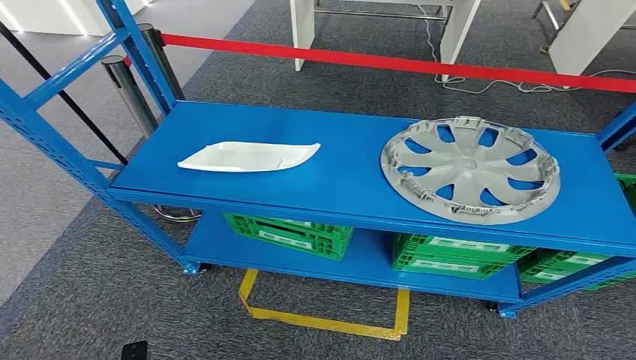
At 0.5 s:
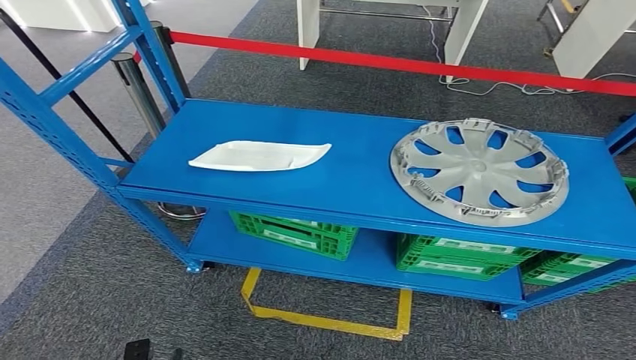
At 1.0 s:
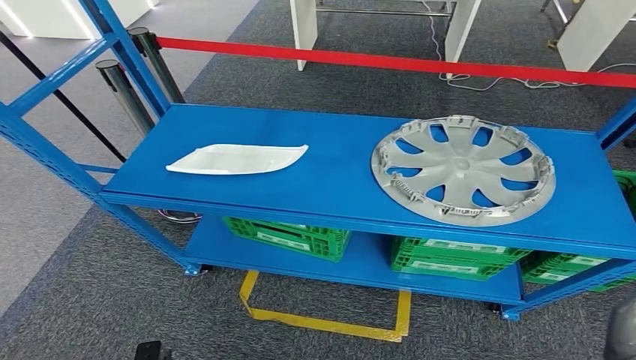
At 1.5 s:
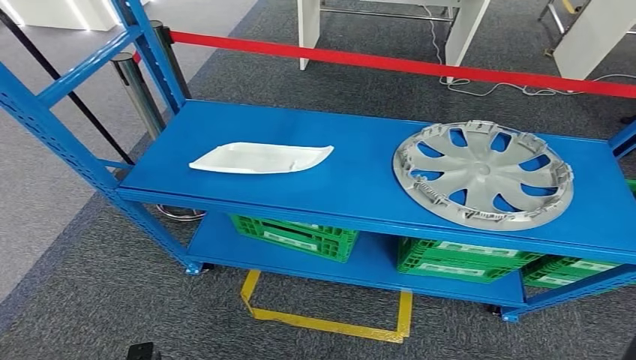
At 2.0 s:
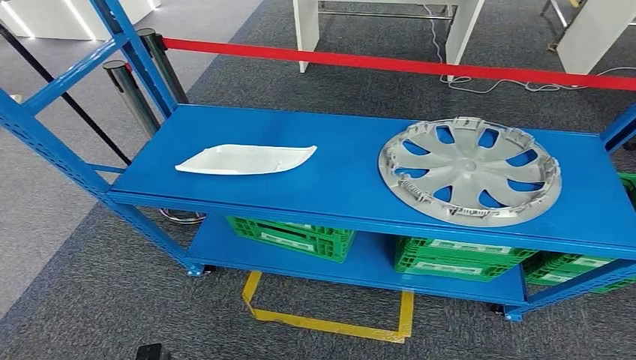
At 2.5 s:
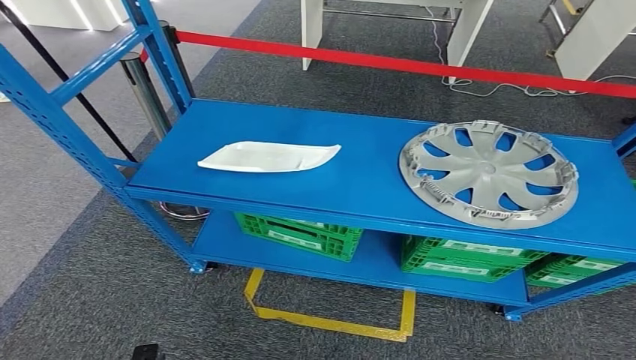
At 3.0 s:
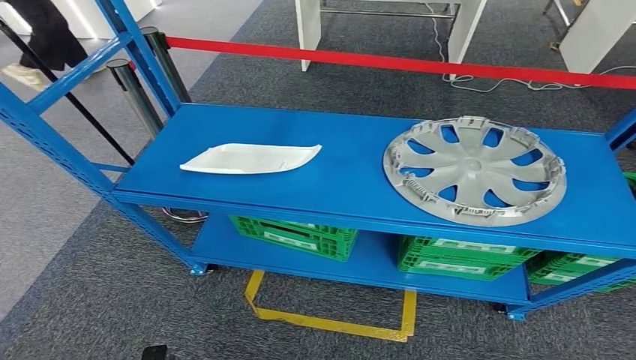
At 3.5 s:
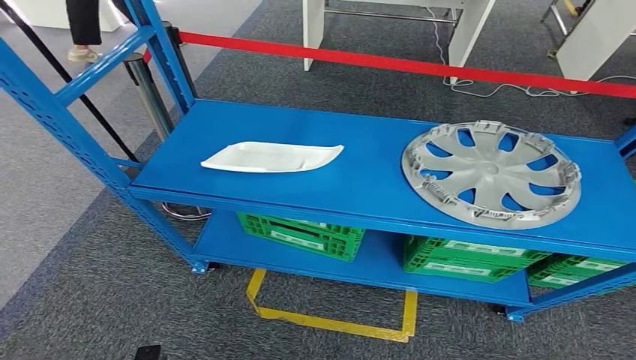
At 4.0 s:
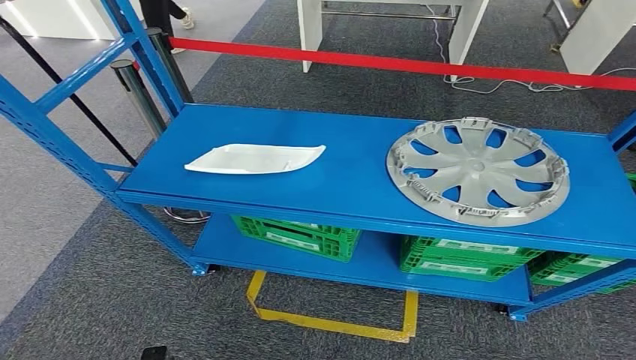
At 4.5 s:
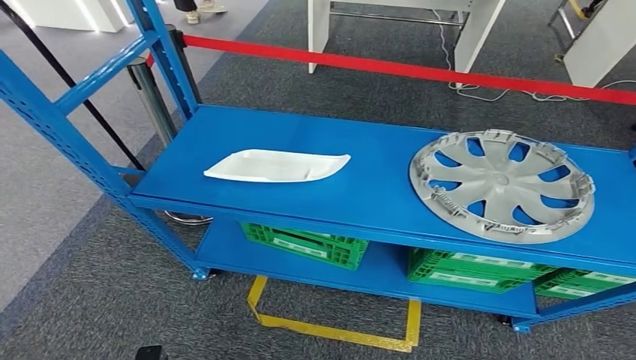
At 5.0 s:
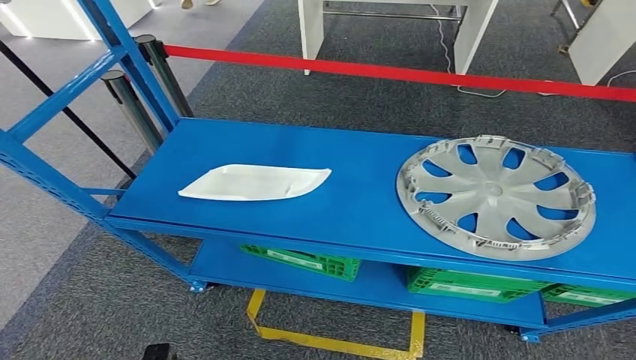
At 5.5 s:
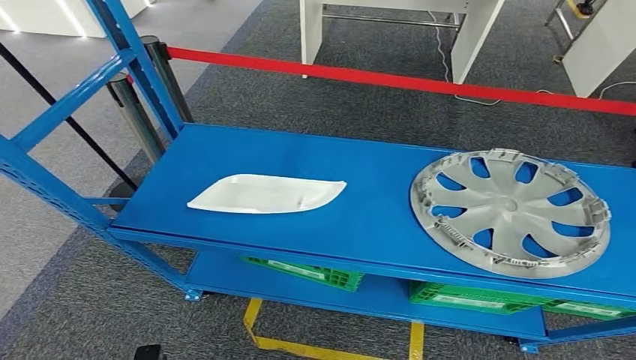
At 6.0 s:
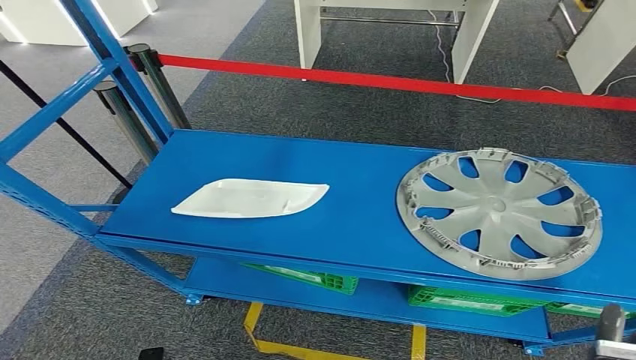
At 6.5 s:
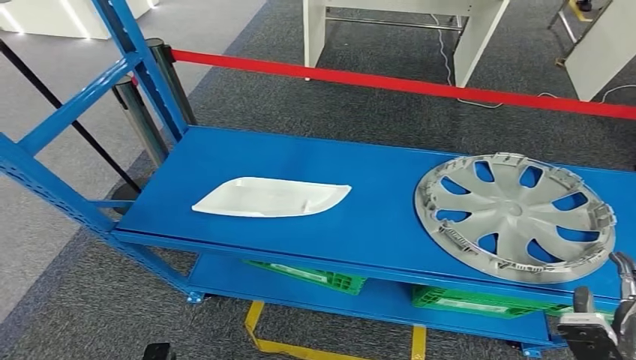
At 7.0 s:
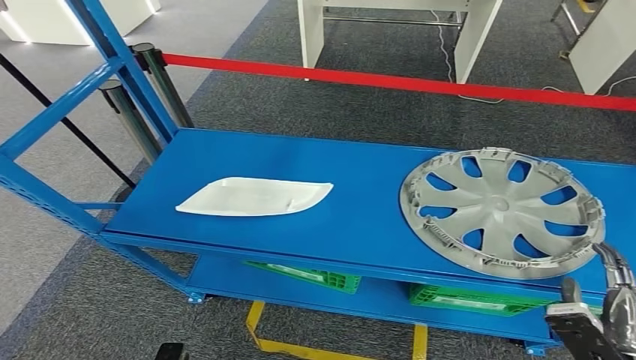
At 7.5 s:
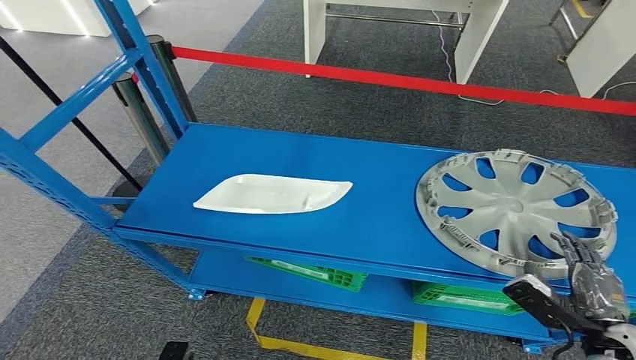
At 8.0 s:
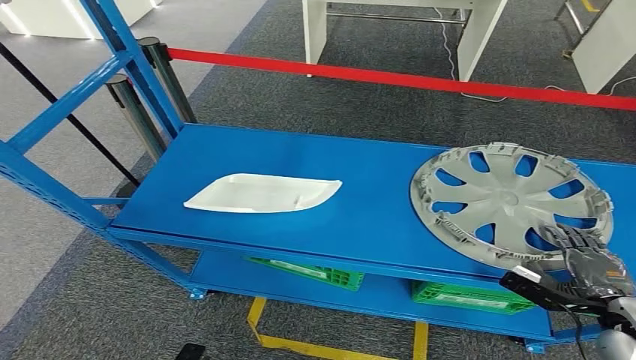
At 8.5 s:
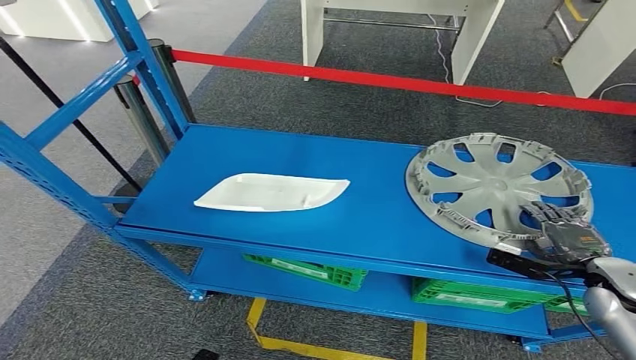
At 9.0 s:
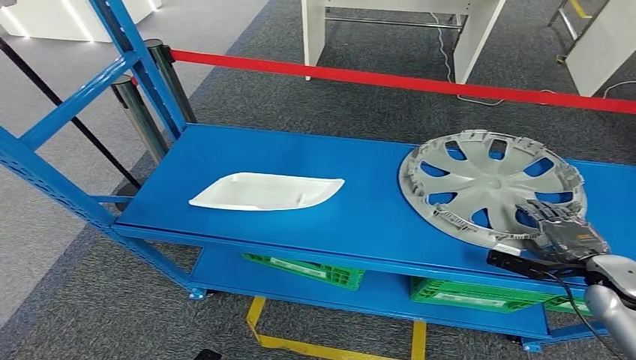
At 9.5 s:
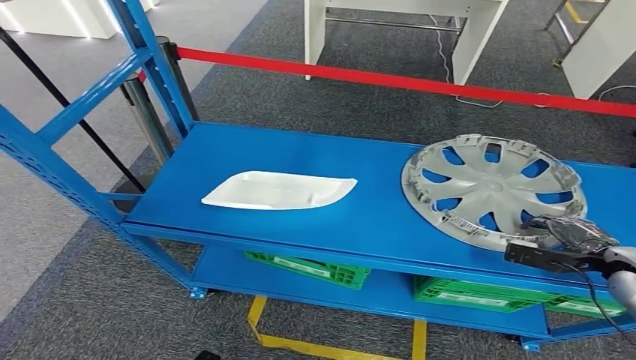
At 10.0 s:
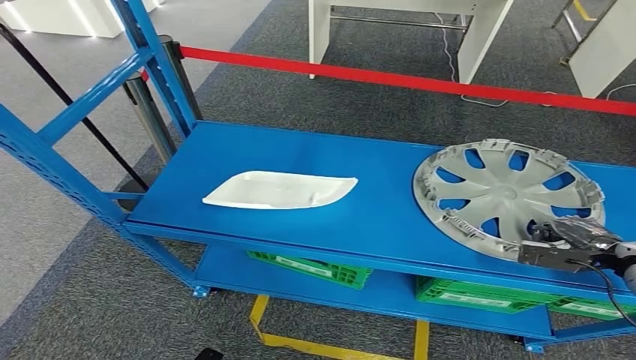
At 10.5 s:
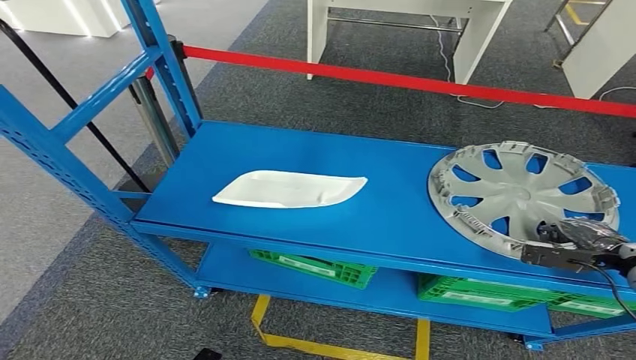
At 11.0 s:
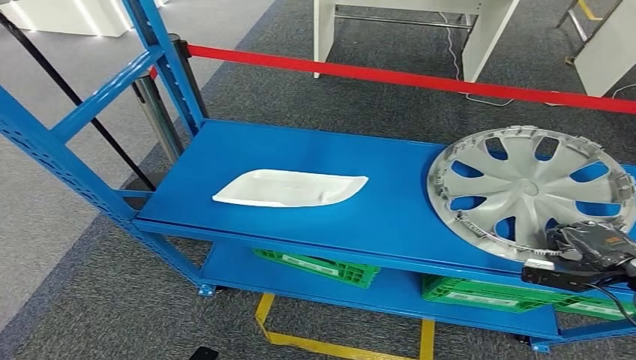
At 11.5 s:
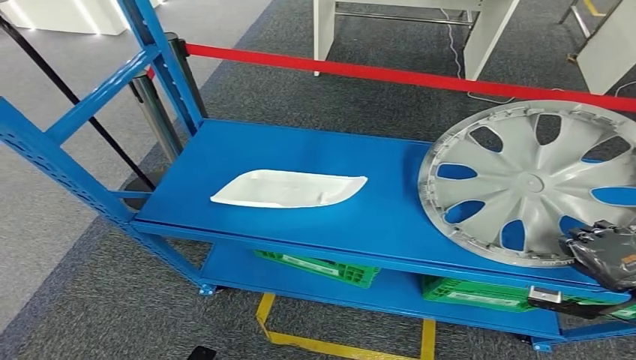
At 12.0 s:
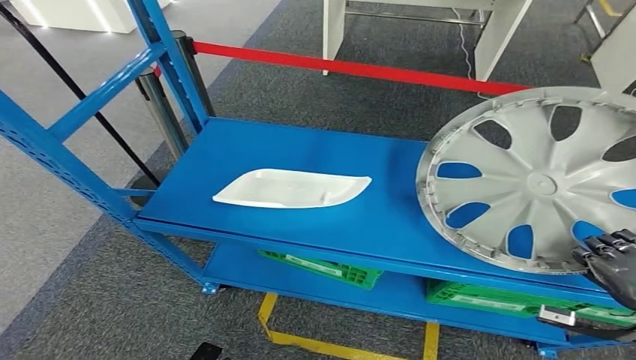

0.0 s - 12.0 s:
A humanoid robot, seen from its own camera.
2.0 s - 4.0 s: The hands move only a little.

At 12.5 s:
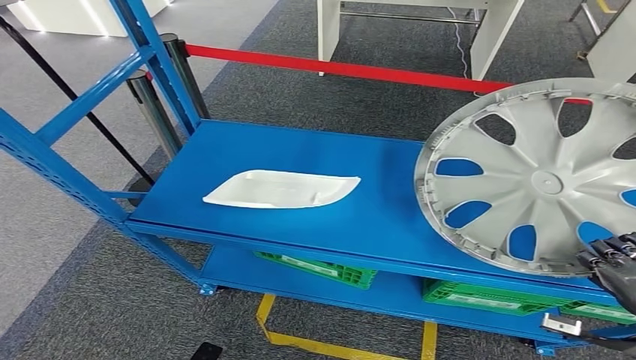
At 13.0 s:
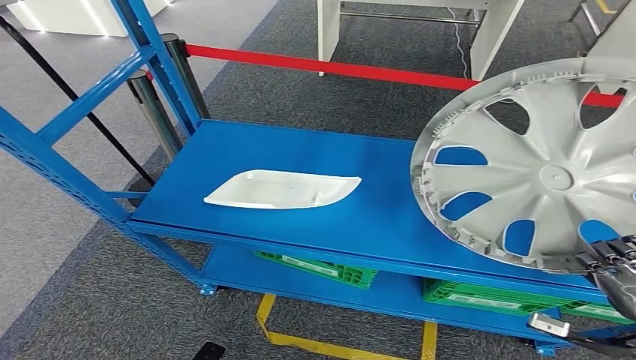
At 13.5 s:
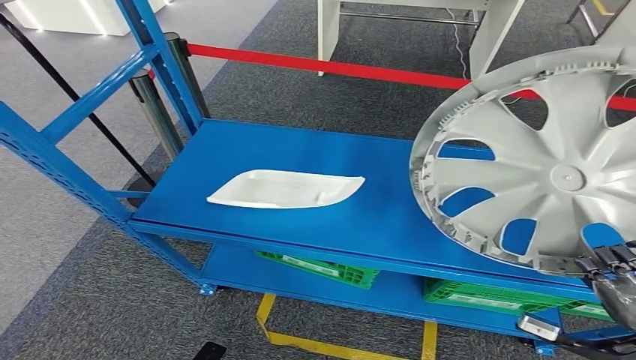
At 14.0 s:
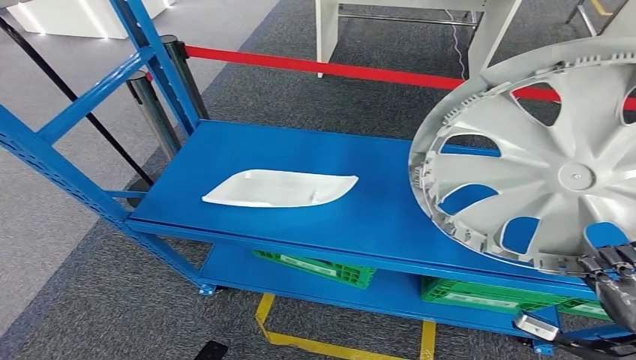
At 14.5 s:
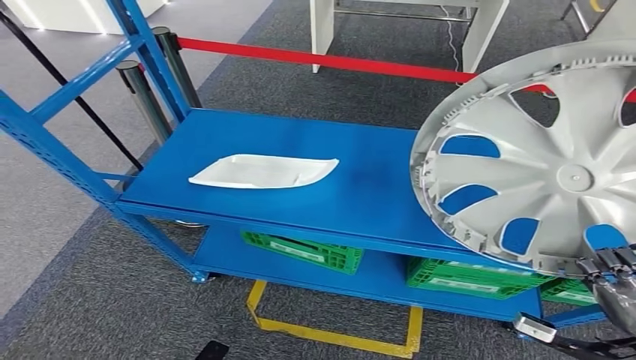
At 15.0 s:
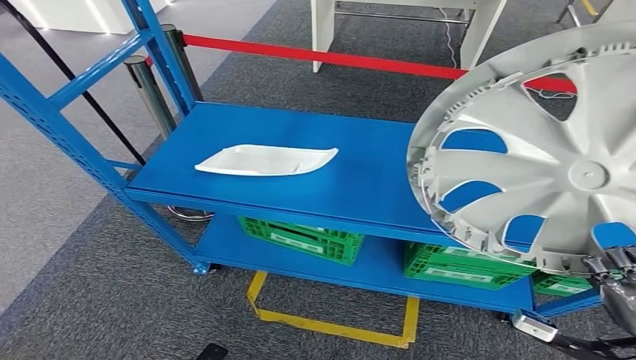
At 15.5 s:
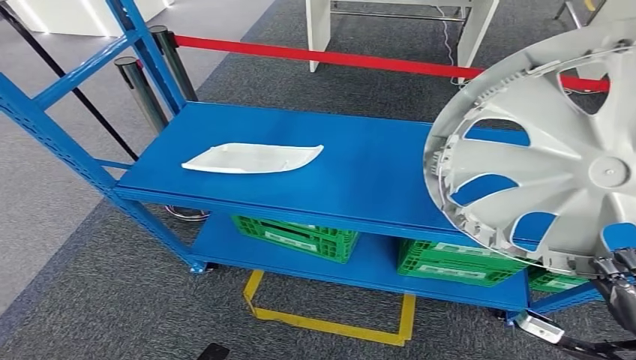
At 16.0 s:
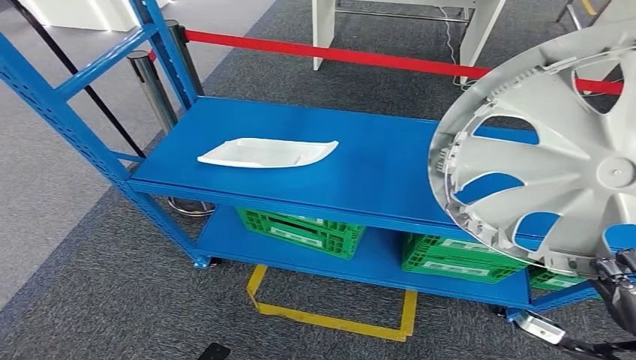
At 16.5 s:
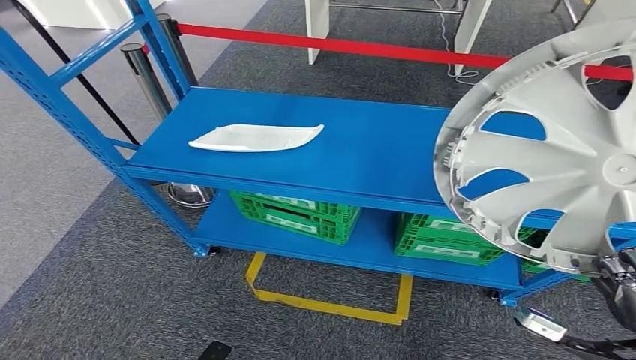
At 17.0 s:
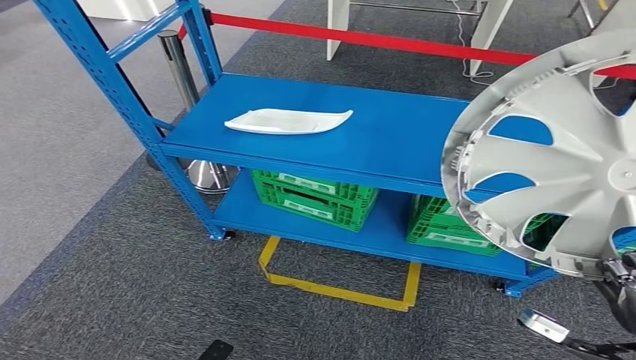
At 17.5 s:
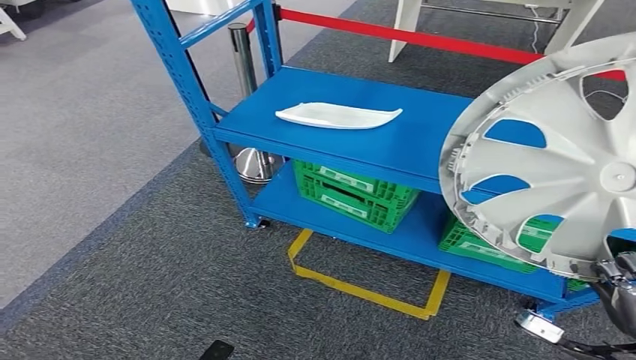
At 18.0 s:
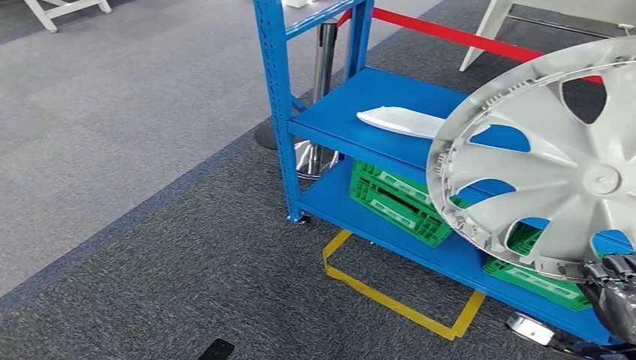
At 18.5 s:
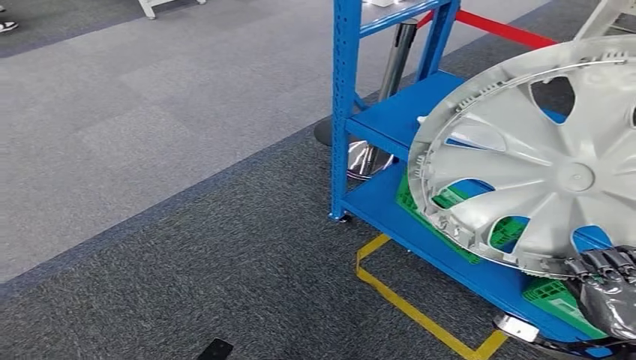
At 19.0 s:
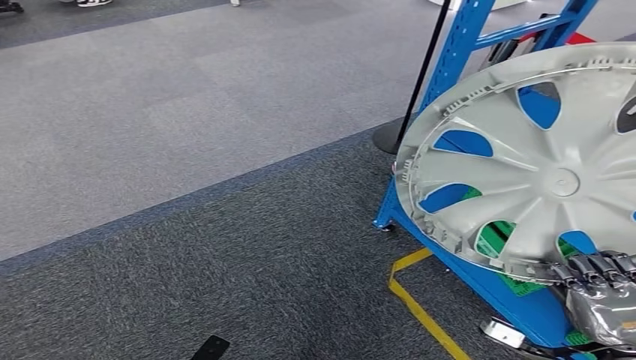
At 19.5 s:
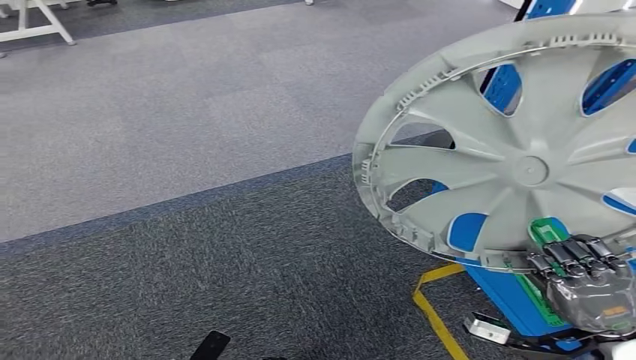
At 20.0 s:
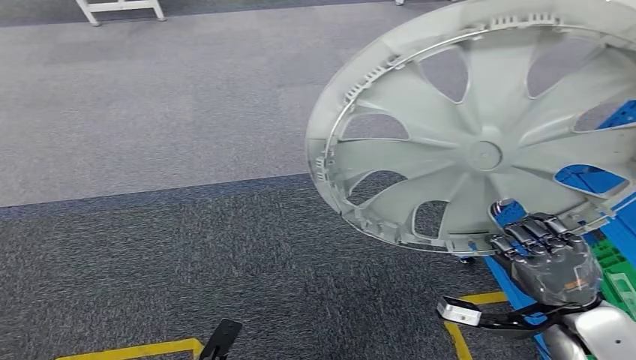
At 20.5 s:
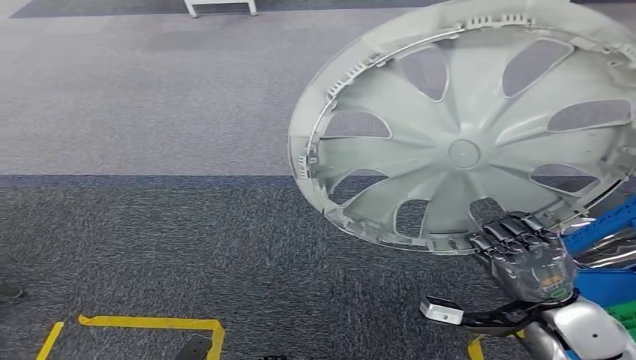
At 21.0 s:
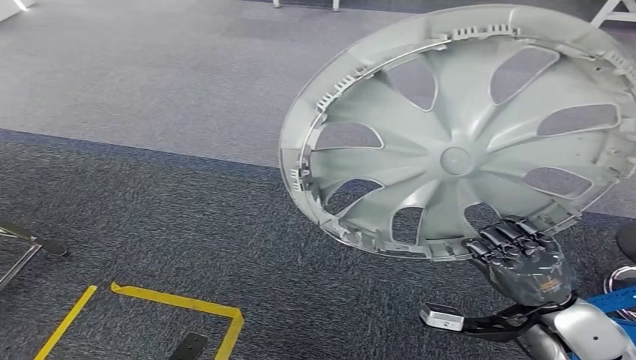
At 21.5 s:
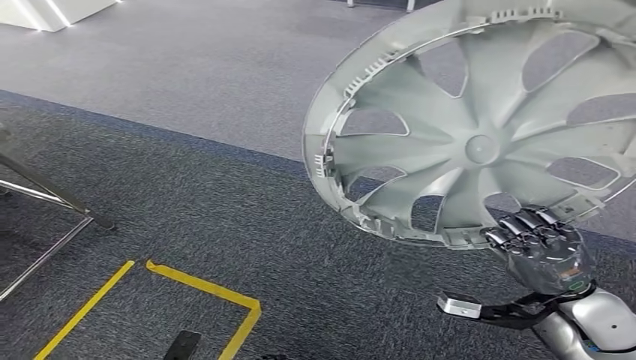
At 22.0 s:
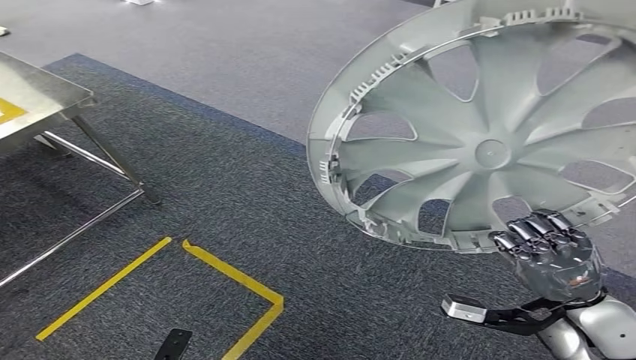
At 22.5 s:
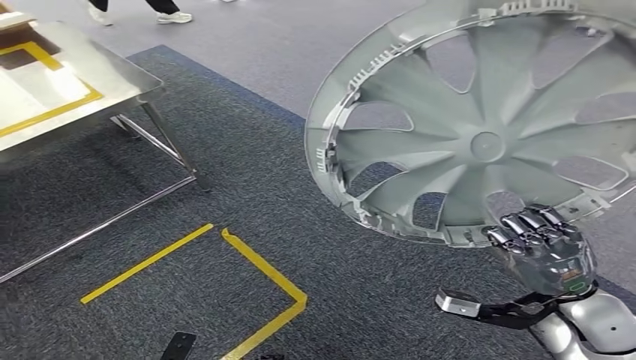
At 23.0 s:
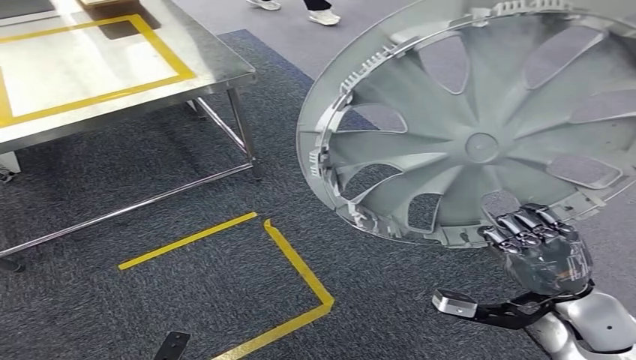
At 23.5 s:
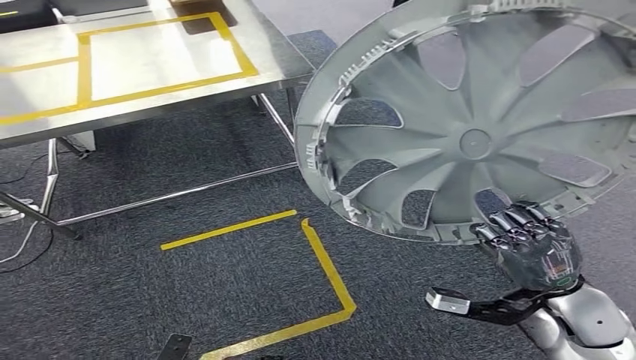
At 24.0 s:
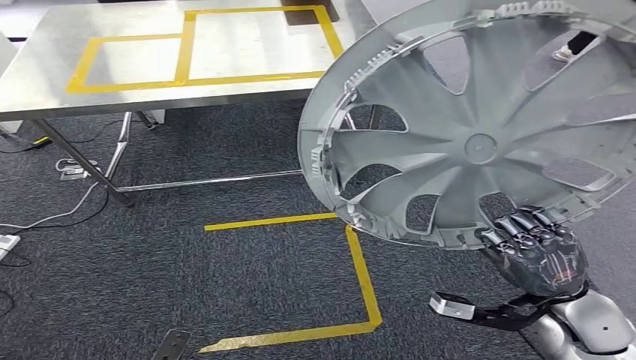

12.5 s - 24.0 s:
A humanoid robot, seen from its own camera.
Step, 12.5 s - 18.5 s: Pick up the small component from the shelf.
